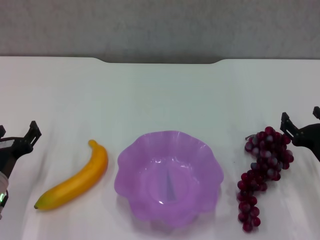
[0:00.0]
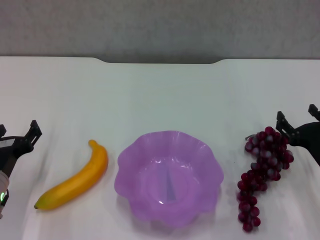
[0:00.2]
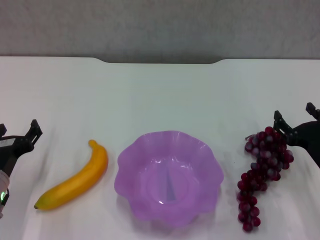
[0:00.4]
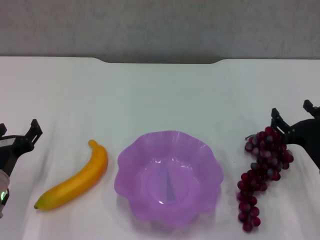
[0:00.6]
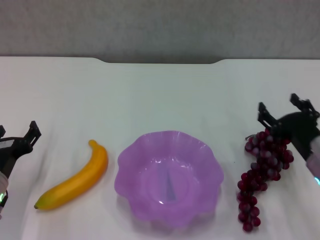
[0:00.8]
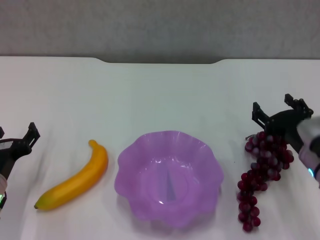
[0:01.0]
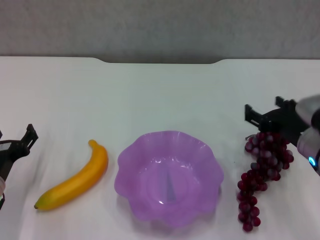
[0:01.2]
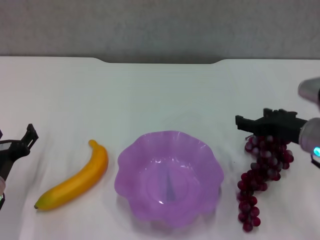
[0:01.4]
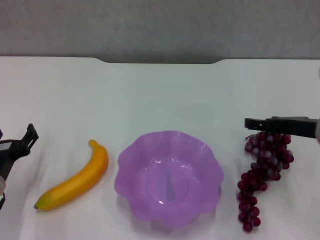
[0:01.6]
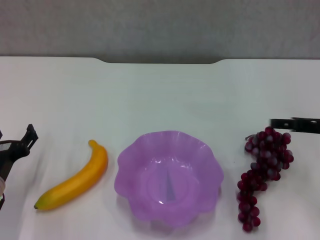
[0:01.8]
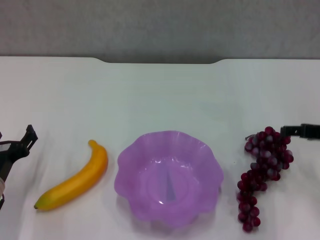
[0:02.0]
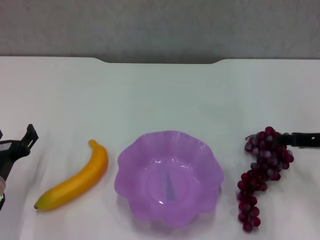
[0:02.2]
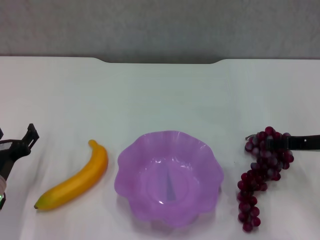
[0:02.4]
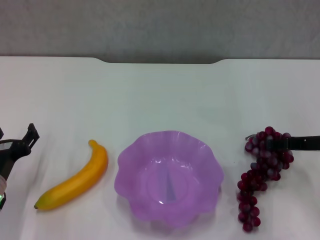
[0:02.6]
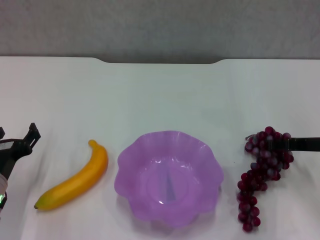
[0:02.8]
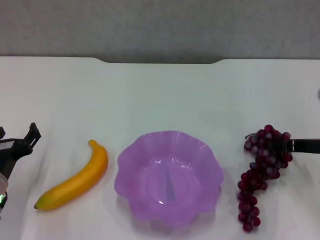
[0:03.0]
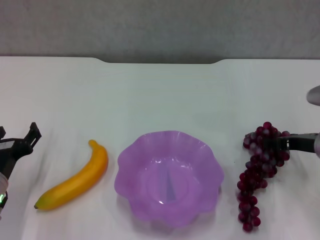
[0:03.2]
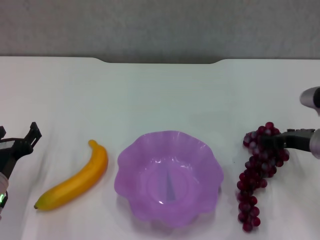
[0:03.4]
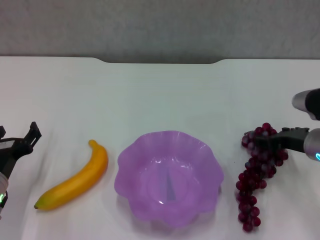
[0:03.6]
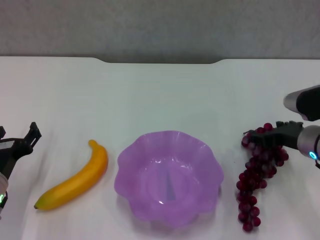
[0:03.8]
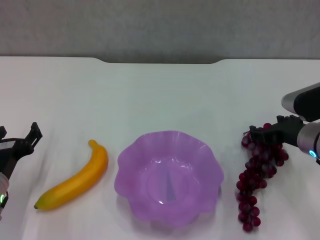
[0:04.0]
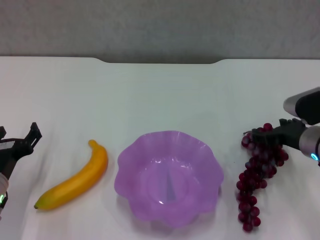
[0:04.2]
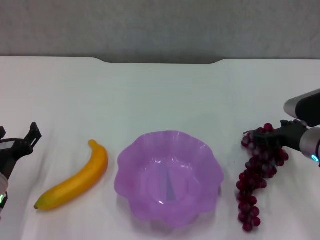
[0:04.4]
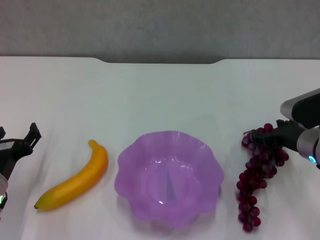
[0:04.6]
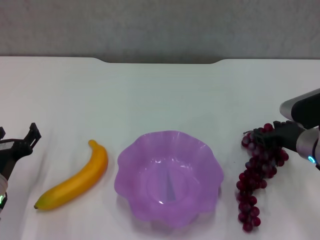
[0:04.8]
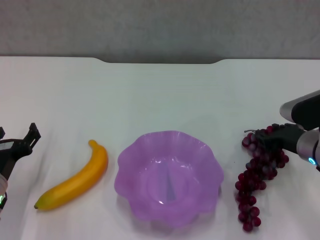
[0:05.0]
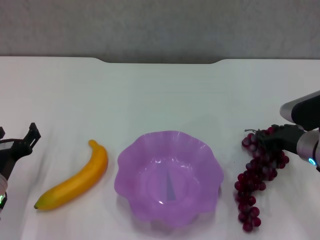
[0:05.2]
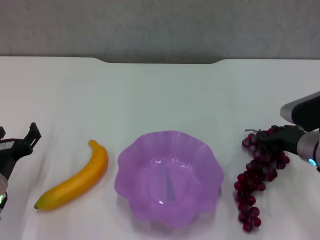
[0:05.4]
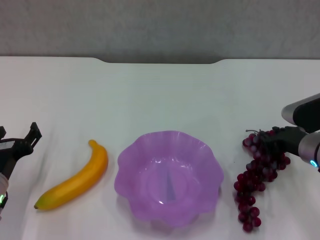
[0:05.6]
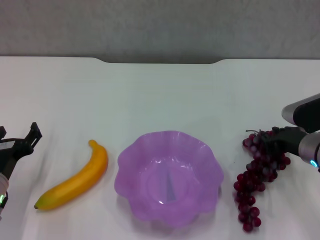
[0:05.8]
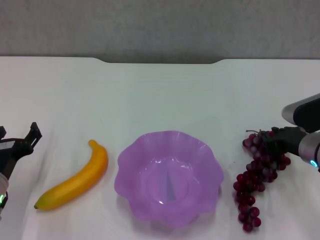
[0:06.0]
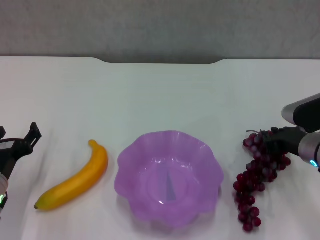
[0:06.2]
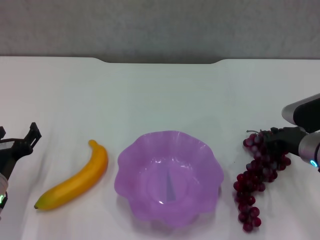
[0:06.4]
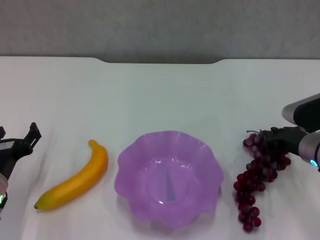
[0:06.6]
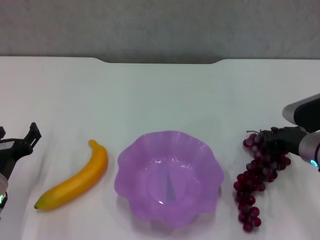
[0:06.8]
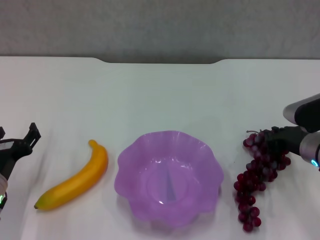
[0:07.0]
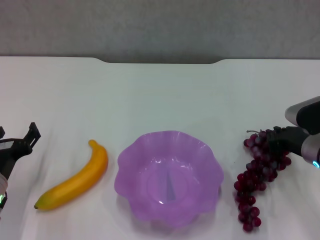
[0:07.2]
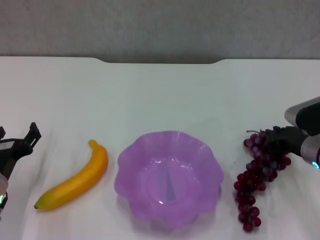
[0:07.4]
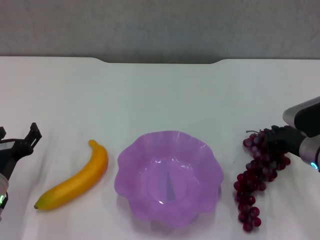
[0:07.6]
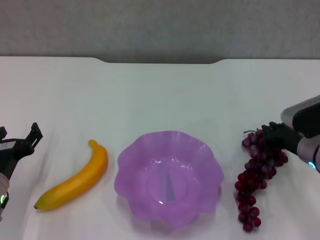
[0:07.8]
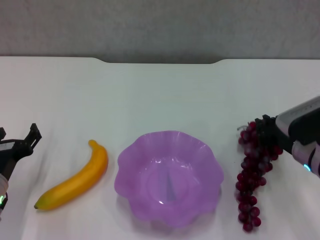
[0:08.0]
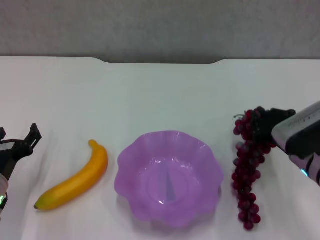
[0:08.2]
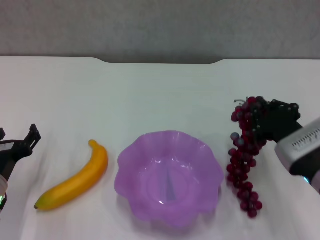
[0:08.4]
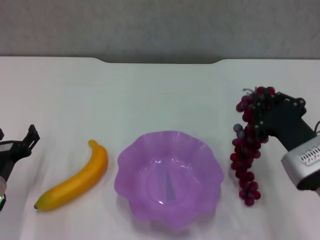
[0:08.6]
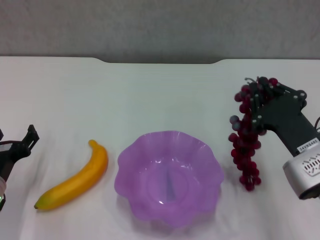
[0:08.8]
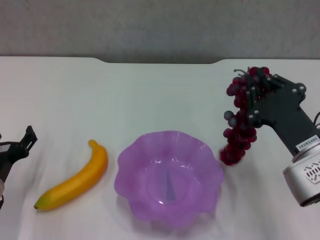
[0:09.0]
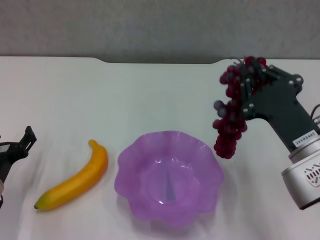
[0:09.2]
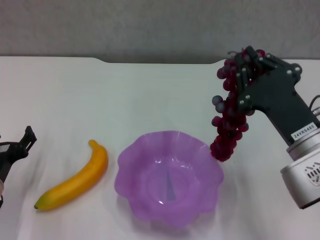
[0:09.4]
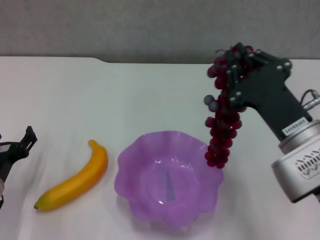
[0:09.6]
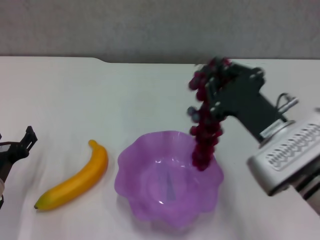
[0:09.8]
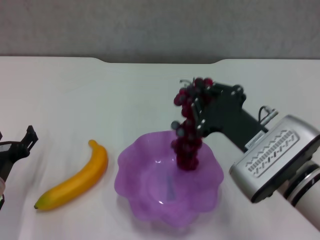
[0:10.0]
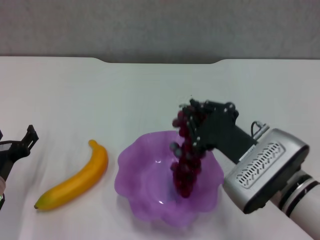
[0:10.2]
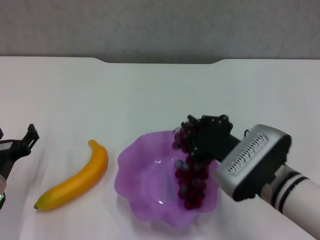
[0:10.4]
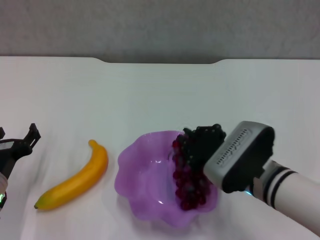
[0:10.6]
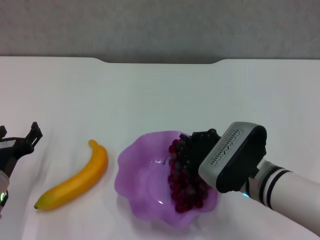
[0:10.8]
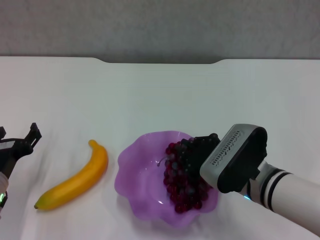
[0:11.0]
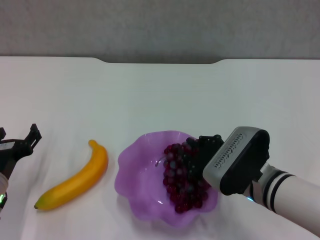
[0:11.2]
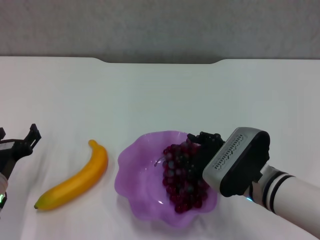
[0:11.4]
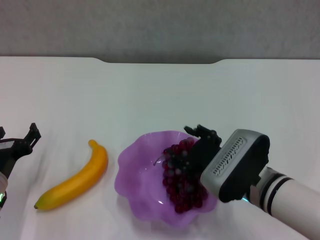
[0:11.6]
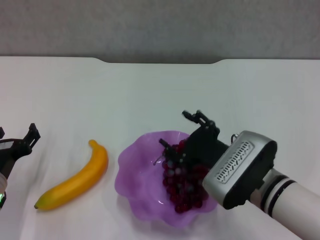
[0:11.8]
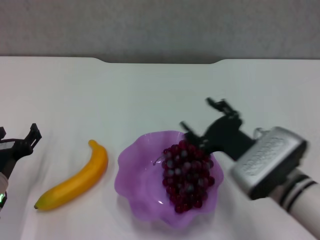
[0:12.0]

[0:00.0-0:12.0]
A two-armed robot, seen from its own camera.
Step, 0:00.0 to 0:05.4: Grasp the grape with right gripper.
Step, 0:05.6 to 0:11.8: Place the grape in the purple plate with right gripper.
0:00.0 to 0:01.6: The right gripper shifts some 10 cm upward.
0:01.6 to 0:03.0: The right gripper heads downward, covering some 5 cm.
0:04.4 to 0:06.0: The right gripper closes.
0:06.0 to 0:07.6: Neither gripper changes place.
0:07.6 to 0:09.0: The right gripper goes about 10 cm backward and to the left.
0:09.0 to 0:10.4: The right gripper shifts some 5 cm to the left.
0:10.4 to 0:12.0: The right gripper opens its fingers.

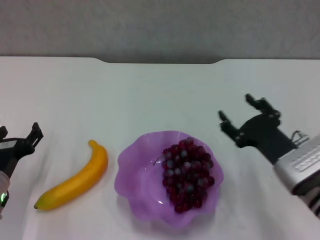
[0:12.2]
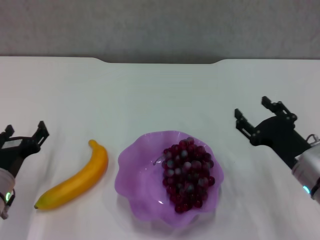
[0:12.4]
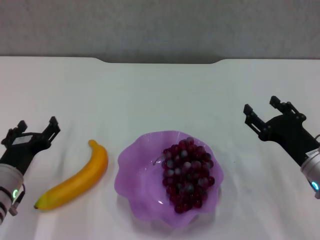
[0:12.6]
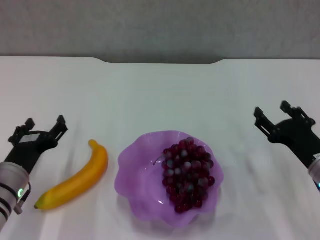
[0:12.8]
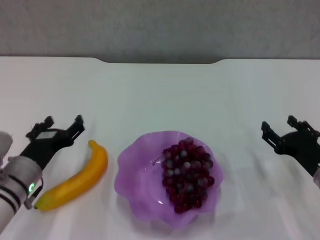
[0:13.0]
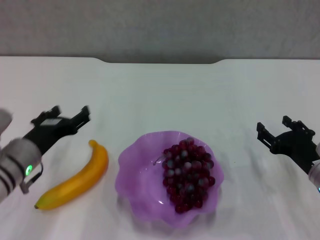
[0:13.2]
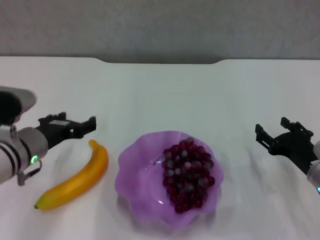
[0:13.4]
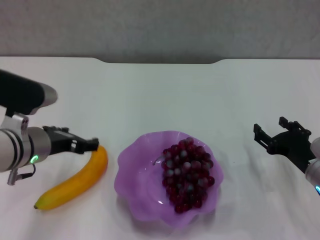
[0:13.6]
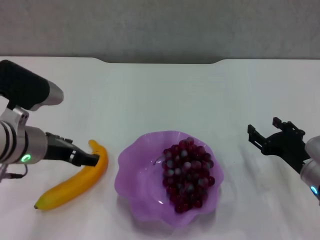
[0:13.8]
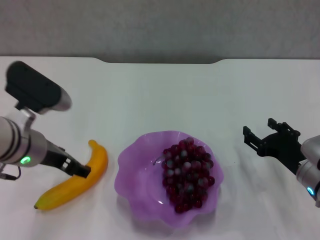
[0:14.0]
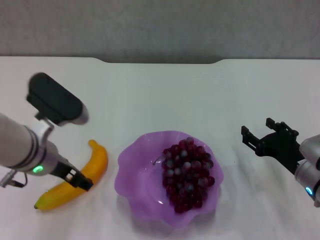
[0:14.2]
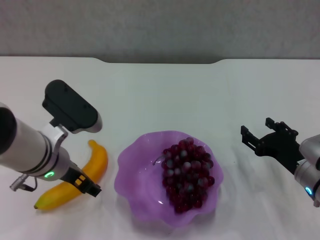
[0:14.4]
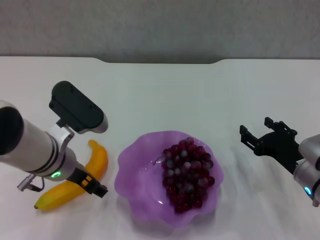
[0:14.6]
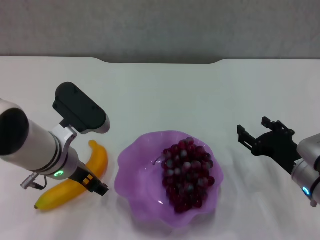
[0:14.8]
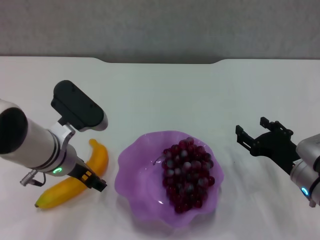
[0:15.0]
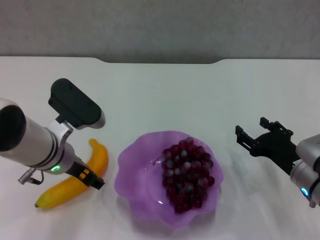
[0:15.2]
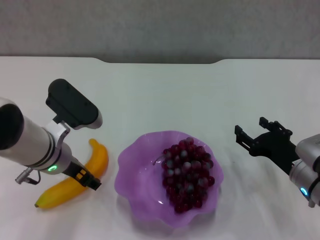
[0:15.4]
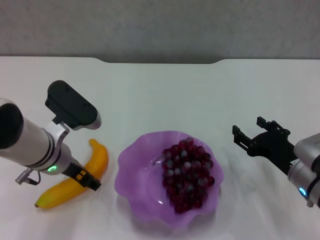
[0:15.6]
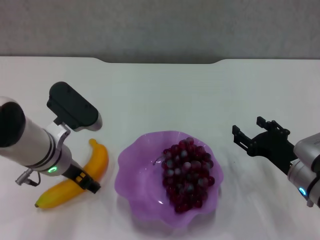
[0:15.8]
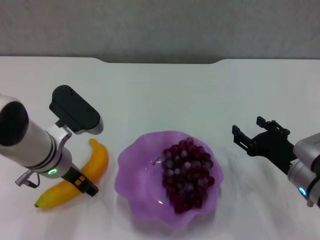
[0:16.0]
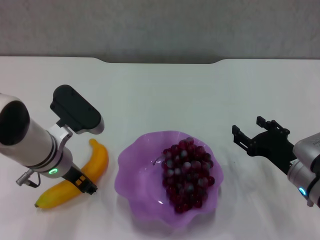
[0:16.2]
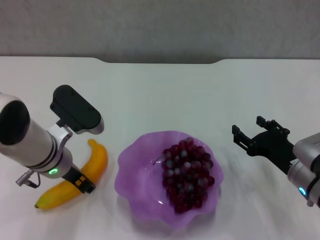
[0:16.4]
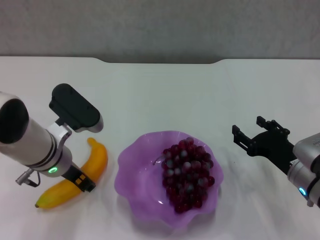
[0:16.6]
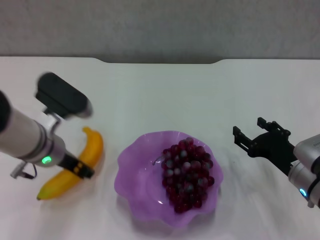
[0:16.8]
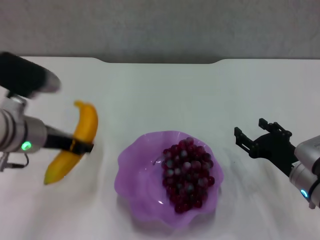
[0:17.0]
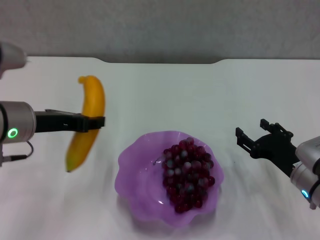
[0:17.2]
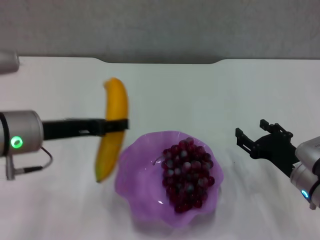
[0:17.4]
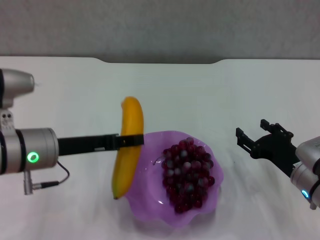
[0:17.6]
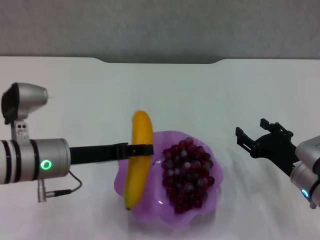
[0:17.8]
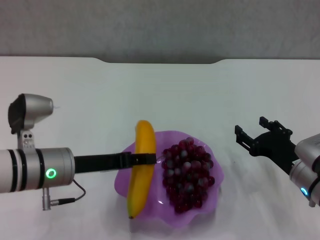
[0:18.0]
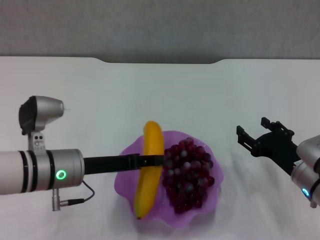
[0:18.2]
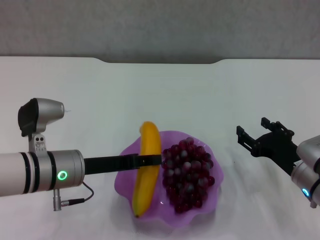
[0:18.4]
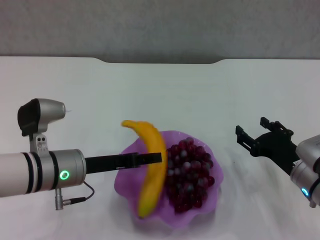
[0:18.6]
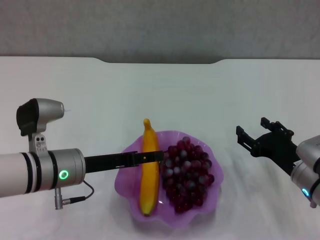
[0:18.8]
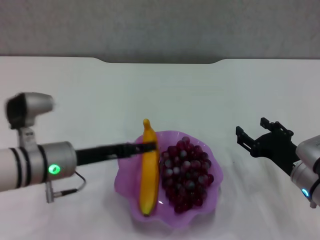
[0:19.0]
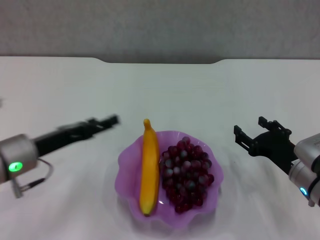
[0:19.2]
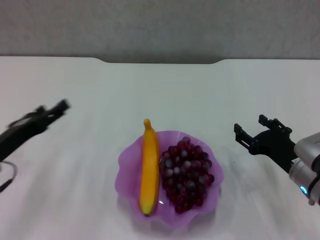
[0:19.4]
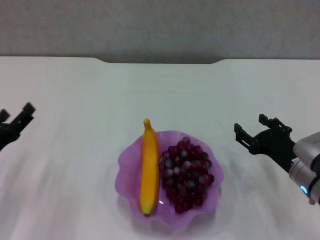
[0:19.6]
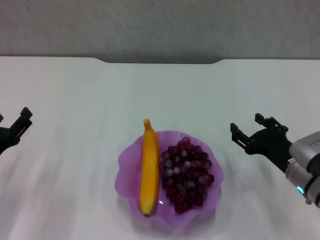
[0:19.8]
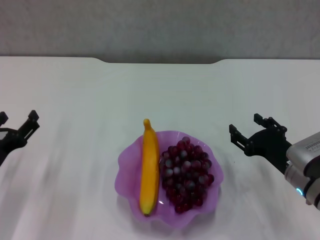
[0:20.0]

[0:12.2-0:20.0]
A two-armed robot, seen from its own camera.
Step, 0:12.2 to 0:16.2: Grasp the banana with left gripper.
Step, 0:16.6 to 0:19.0: Place the banana in the purple plate with left gripper.
0:12.2 to 0:13.8: The left gripper heads upward and to the right, covering roughly 15 cm, while the right gripper travels to the right by about 5 cm.
0:13.8 to 0:15.4: The left gripper ends up approximately 5 cm from where it was.
0:15.4 to 0:16.8: The left gripper closes its fingers.
0:16.8 to 0:18.4: The left gripper moves approximately 5 cm upward and comes back.
0:18.4 to 0:20.0: The left gripper goes some 10 cm to the left, and opens its fingers.
